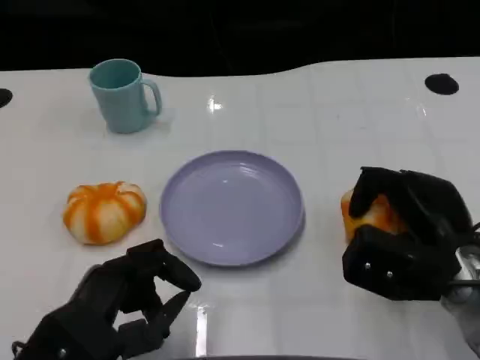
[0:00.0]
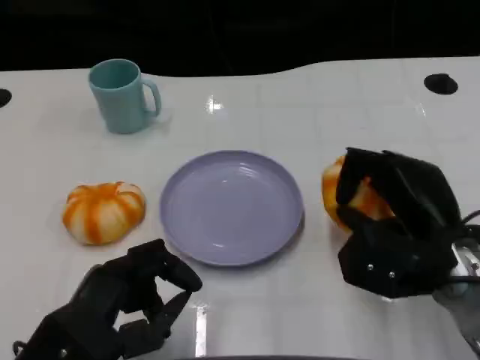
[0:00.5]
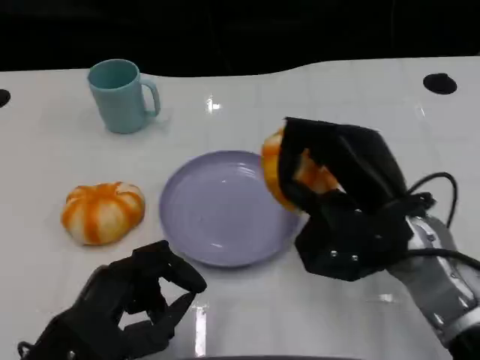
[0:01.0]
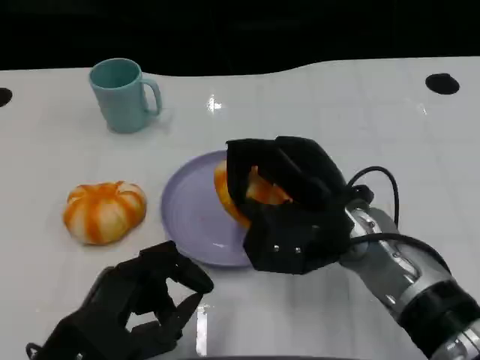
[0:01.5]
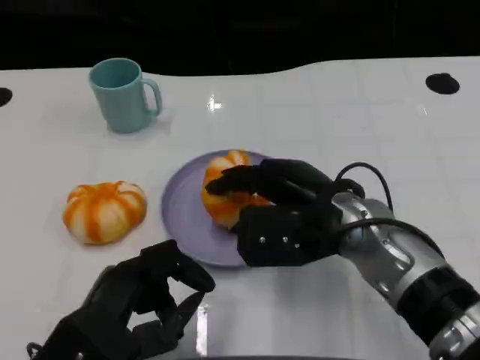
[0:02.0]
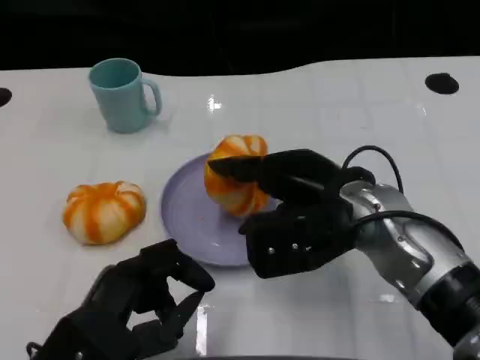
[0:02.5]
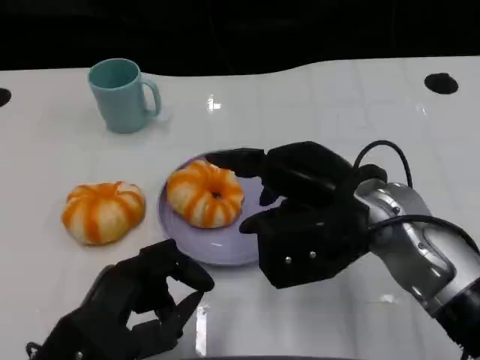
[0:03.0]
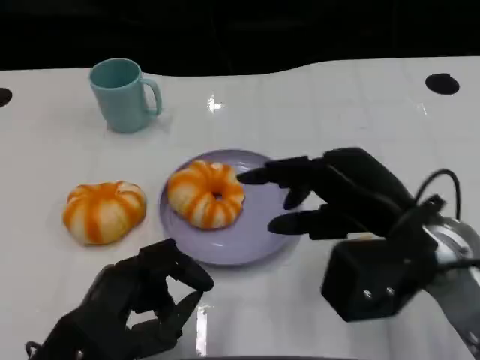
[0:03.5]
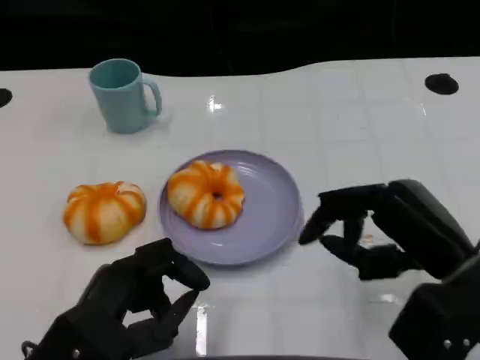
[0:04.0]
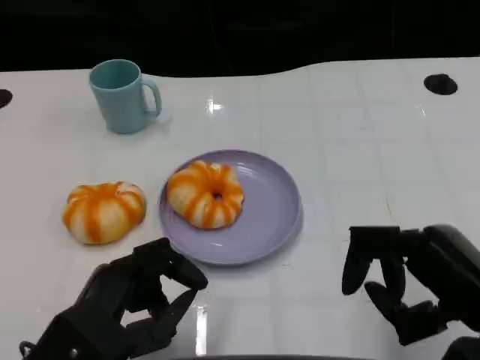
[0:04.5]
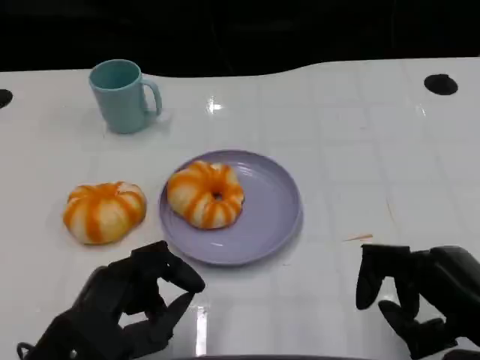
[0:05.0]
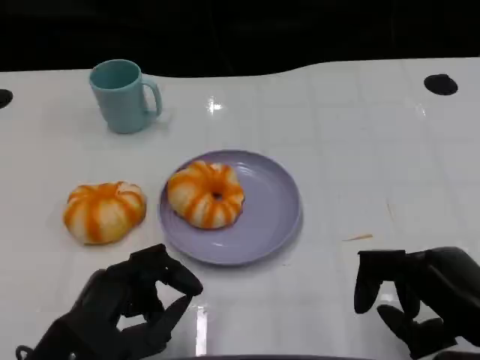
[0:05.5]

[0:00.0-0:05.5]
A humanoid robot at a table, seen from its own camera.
Task of the whole recording: Grasp the bread from the table and place it into the plate.
0:00.0 to 0:02.0: The right hand is displaced to the left by approximately 10 cm.
0:02.0 to 0:03.5: The right hand goes some 5 cm to the right.
0:03.5 to 0:05.5: The right hand moves backward, to the right and downward, approximately 10 cm.

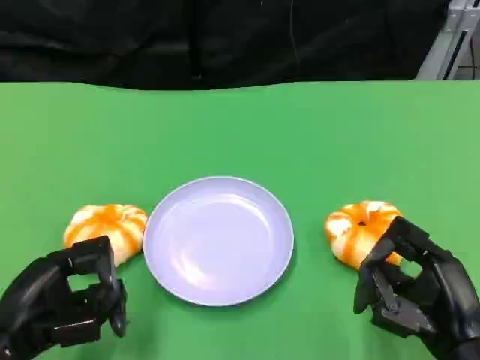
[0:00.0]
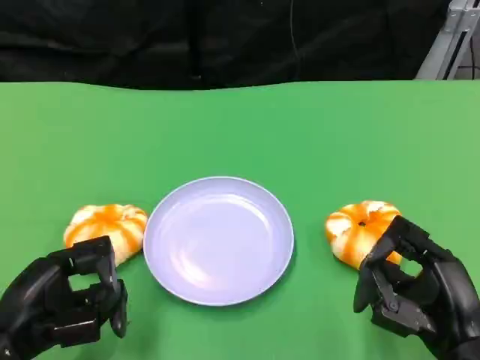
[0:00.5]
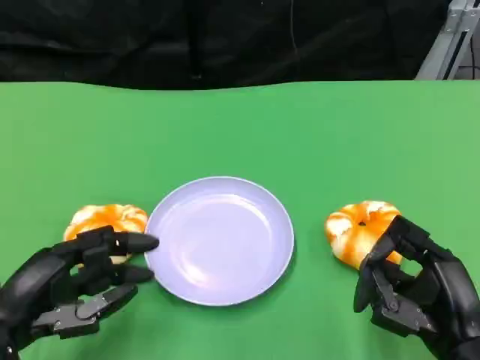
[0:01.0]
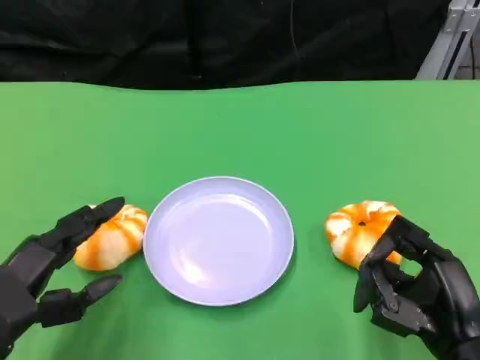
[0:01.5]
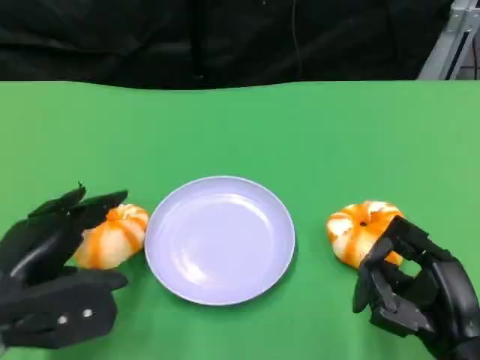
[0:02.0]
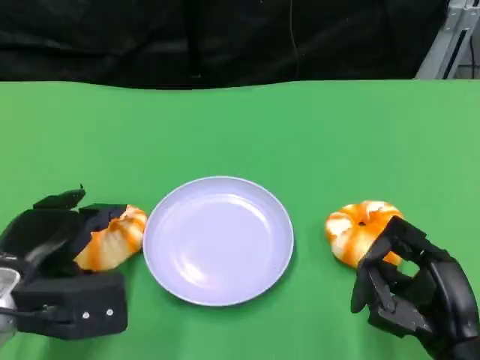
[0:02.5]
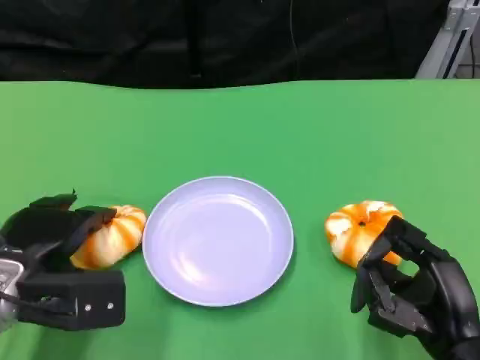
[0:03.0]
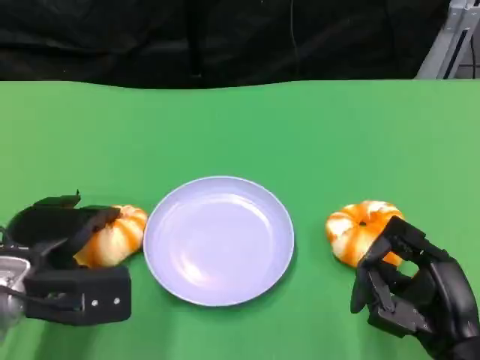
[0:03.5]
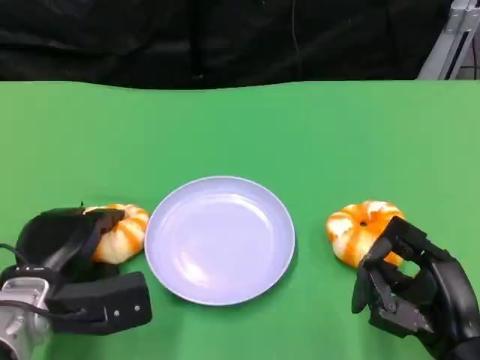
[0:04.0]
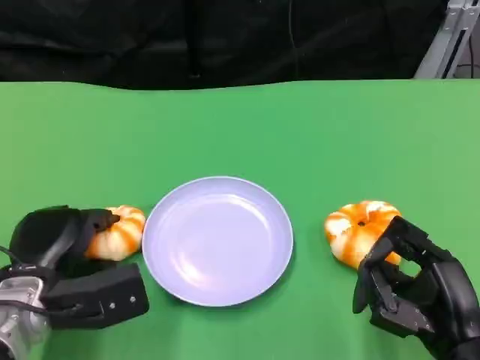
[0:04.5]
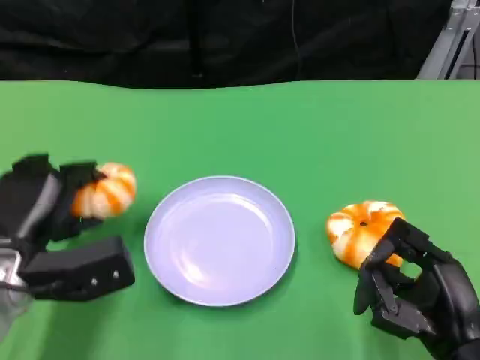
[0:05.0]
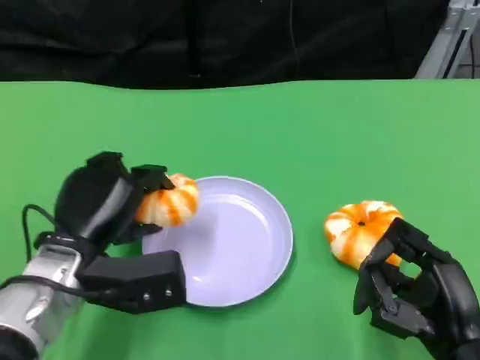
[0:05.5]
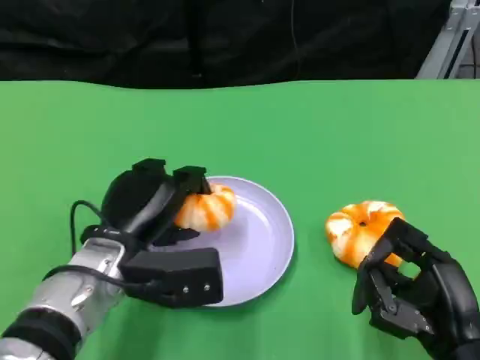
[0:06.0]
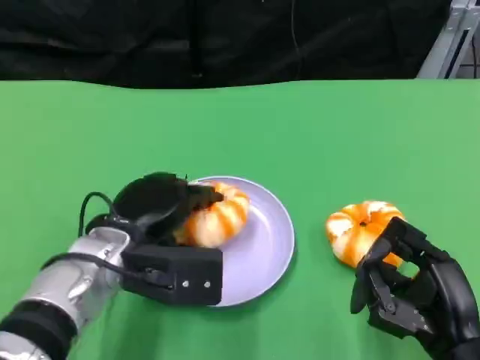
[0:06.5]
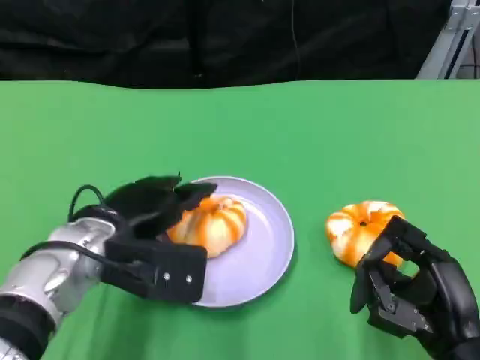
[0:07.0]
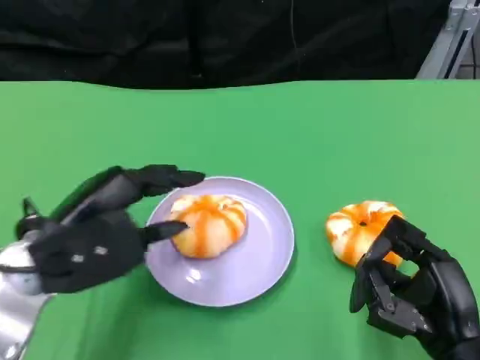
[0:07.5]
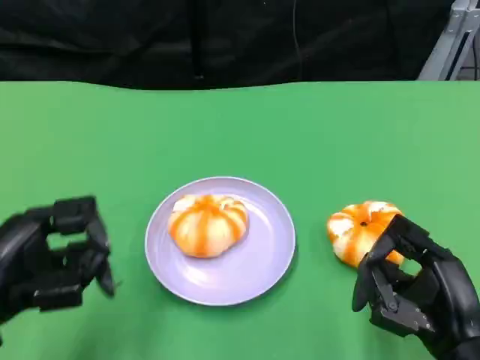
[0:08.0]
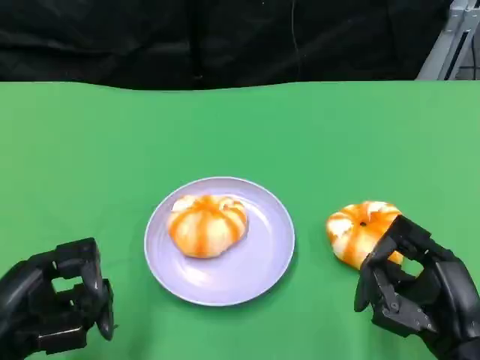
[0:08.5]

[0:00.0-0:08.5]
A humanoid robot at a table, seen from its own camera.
Task of the whole recording: Grasp the bread from the table and place it into the plate.
0:00.0 to 0:02.0: The left hand shifts by about 5 cm.
0:02.0 to 0:04.0: The left hand shifts roughly 5 cm downward.
0:04.0 to 0:06.5: The left hand travels to the right and upward by roughly 10 cm.
0:06.5 to 0:08.5: The left hand travels to the left and backward by roughly 15 cm.

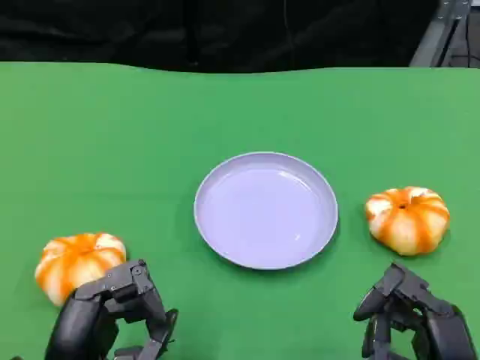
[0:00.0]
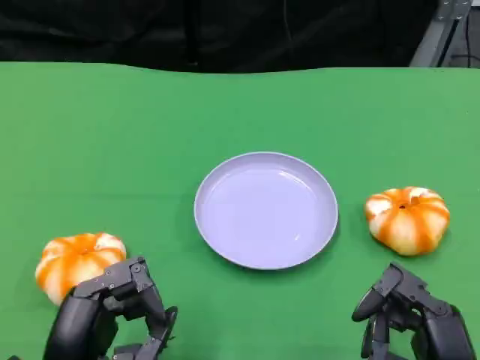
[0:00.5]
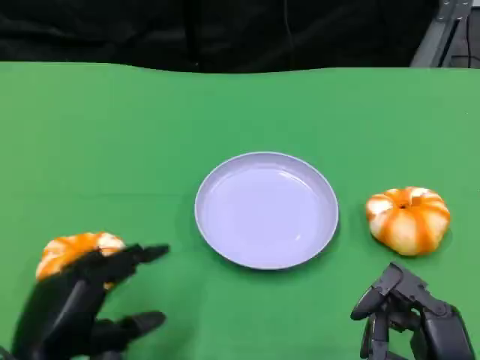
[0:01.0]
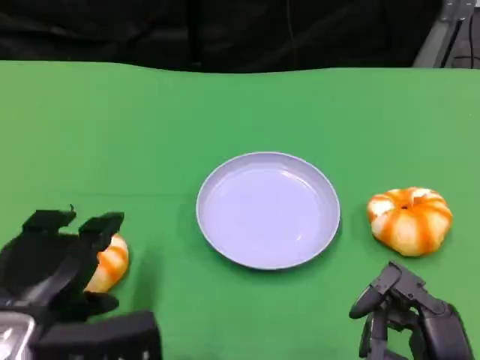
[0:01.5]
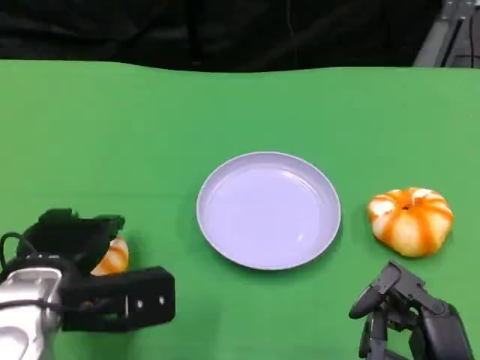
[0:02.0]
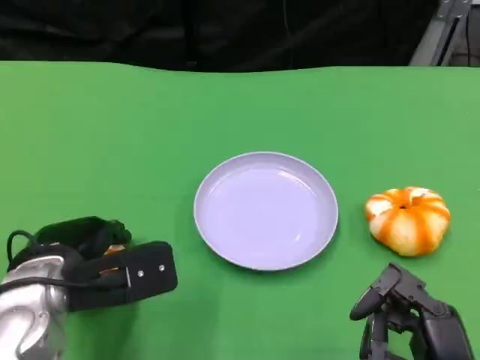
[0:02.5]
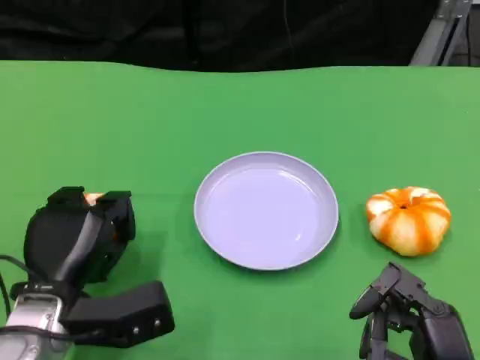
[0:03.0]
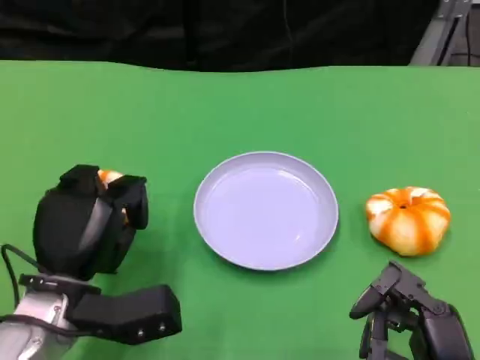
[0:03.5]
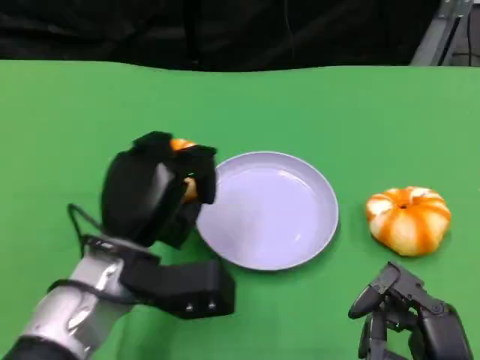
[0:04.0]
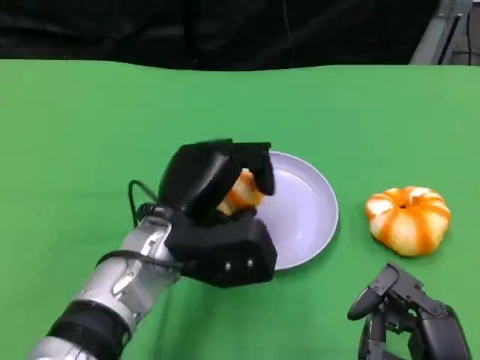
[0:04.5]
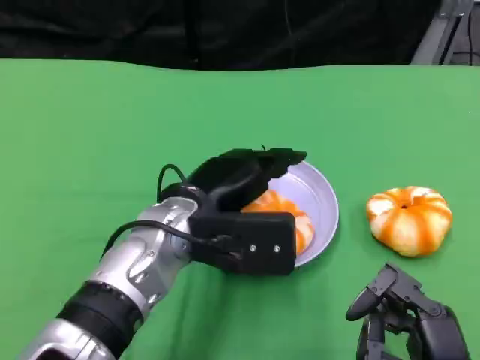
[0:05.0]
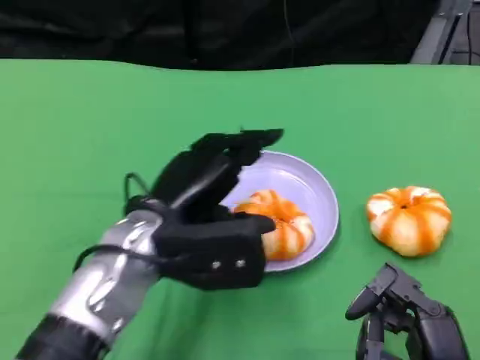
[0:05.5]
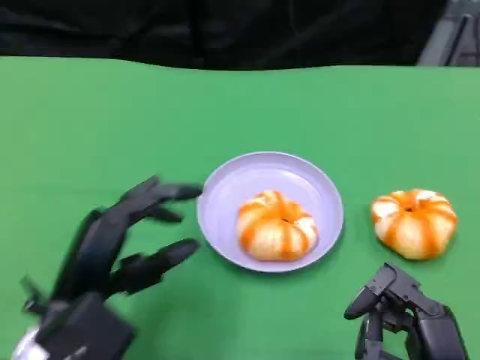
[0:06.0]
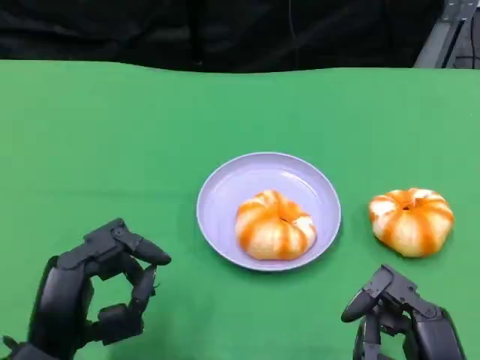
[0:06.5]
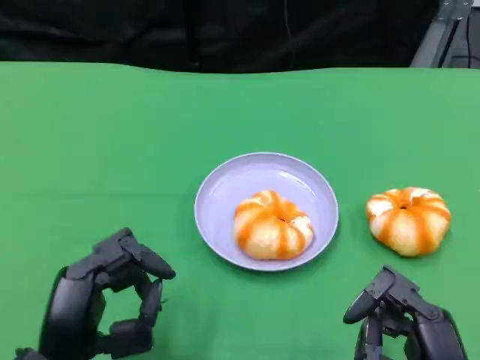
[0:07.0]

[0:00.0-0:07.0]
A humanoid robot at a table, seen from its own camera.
Task of the whole recording: Grasp the bread from the table and place it into the plate.
0:00.0 to 0:02.0: The left hand heads forward, covering roughly 10 cm.
0:03.5 to 0:05.0: The left hand moves to the right and upward, about 15 cm.
0:05.0 to 0:07.0: The left hand shifts some 20 cm backward, to the left and downward.

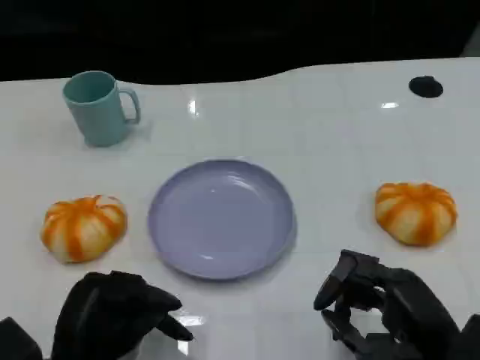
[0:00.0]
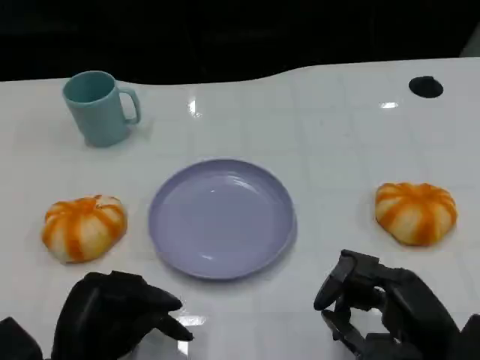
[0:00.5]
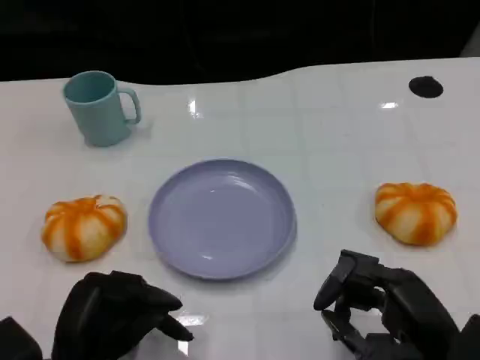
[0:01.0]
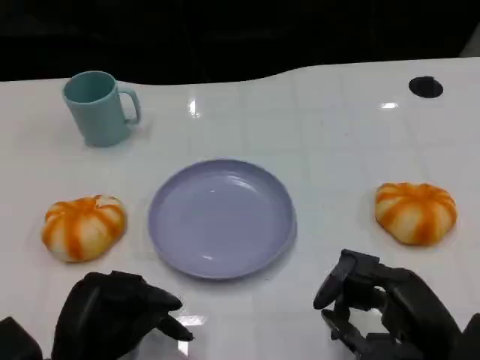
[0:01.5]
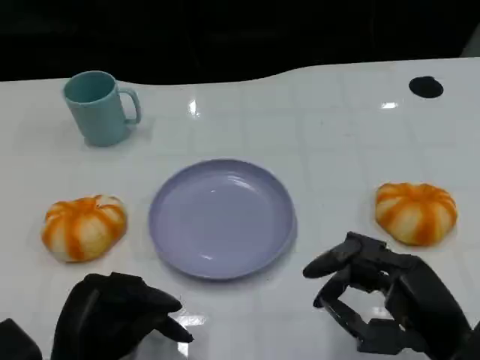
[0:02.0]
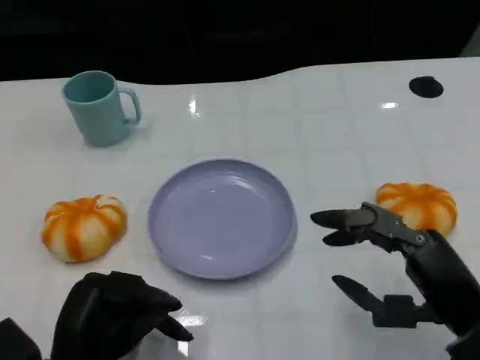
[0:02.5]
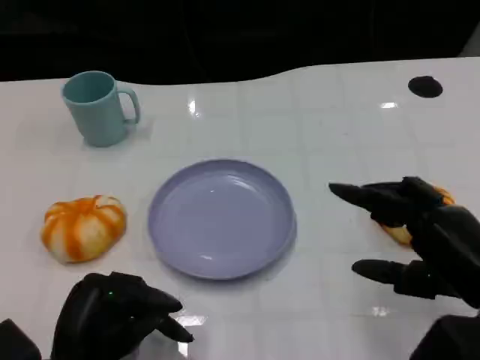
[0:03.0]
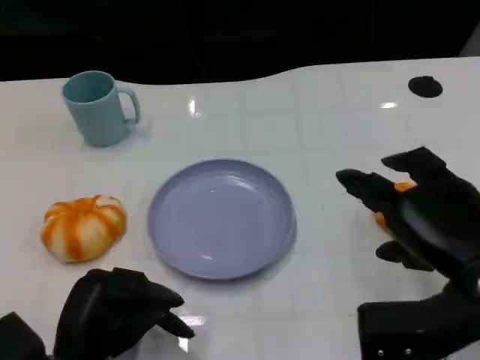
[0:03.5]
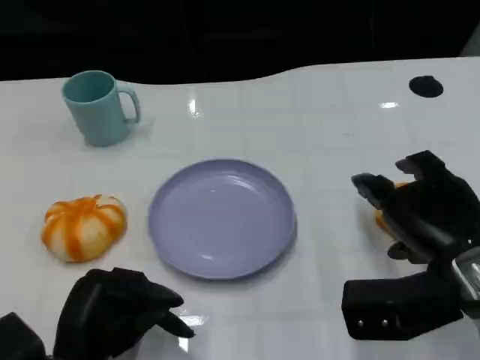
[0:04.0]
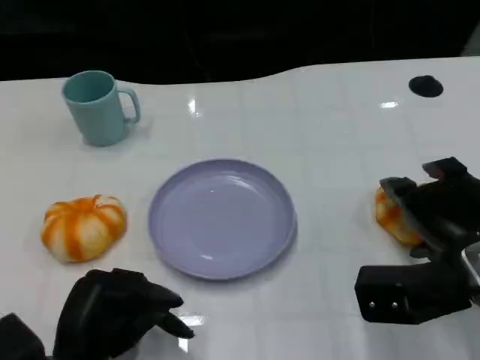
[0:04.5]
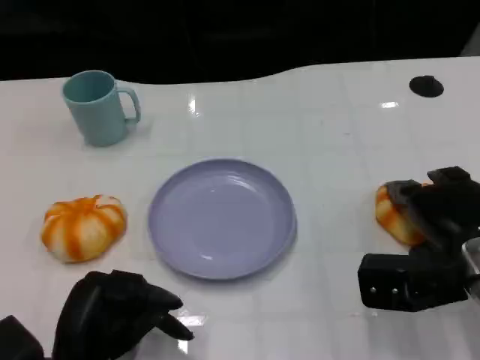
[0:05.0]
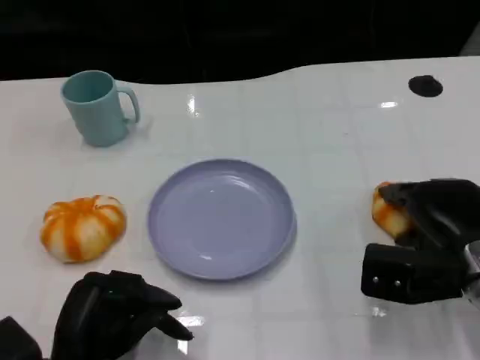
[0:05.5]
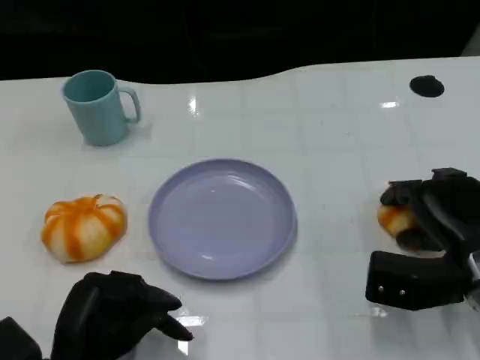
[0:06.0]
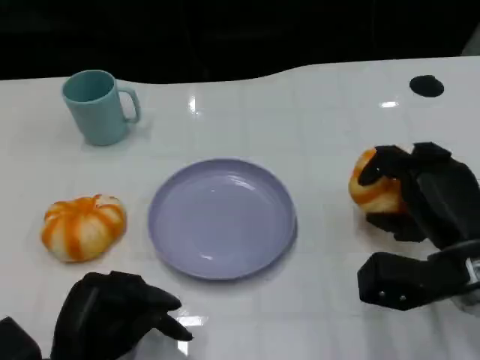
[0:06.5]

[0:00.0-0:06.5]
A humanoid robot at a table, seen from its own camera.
Task of the whole recording: Grasp the bread from the table and place it into the plate.
0:00.0 to 0:02.0: There are only small adjustments of the hands.
0:02.0 to 0:04.5: The right hand goes about 10 cm forward.
